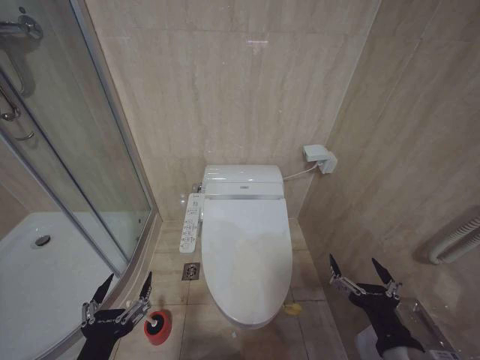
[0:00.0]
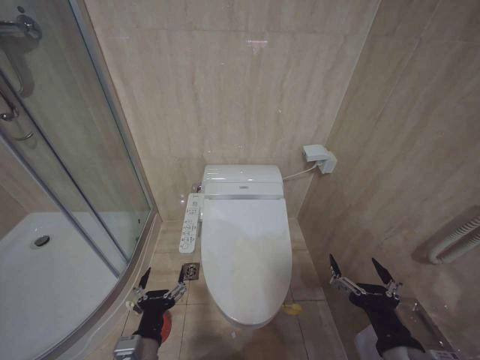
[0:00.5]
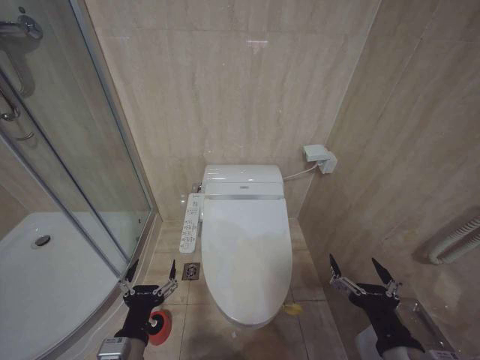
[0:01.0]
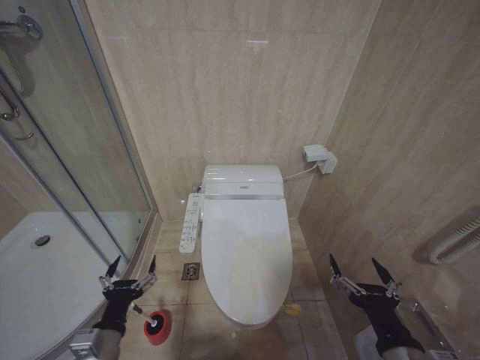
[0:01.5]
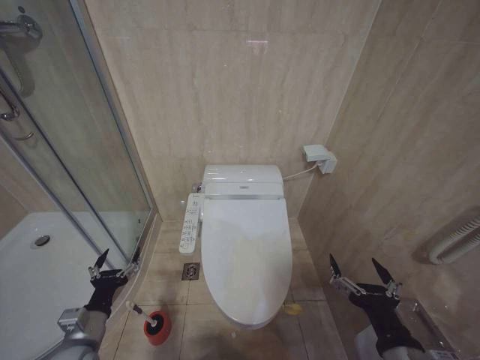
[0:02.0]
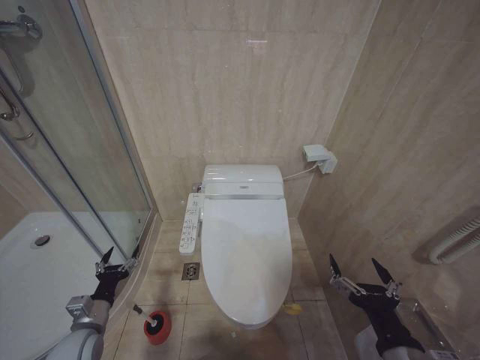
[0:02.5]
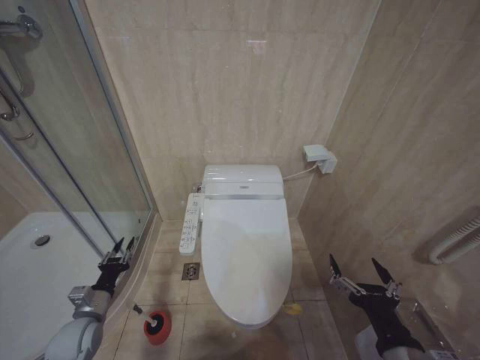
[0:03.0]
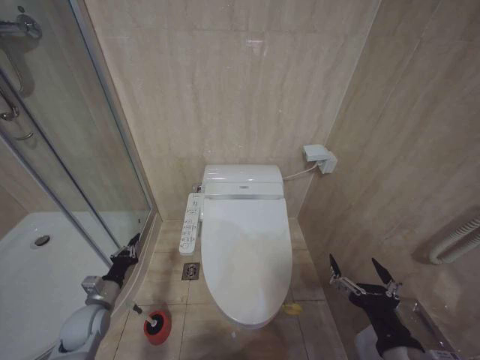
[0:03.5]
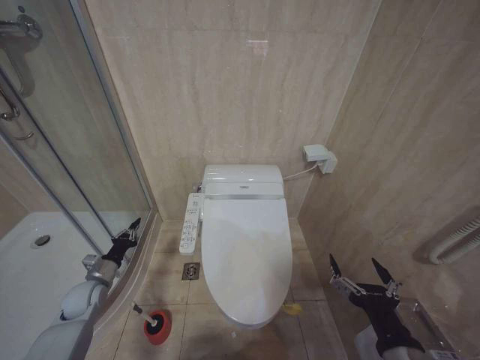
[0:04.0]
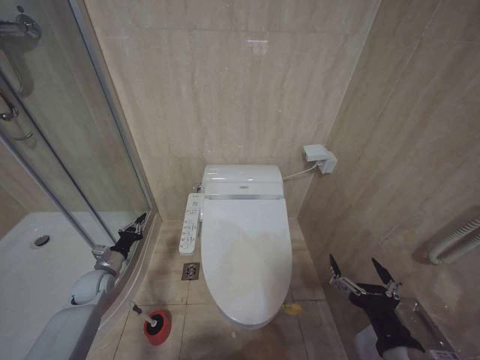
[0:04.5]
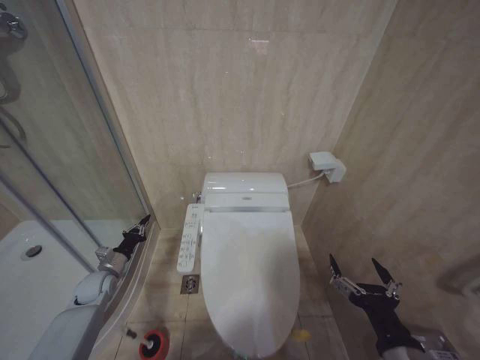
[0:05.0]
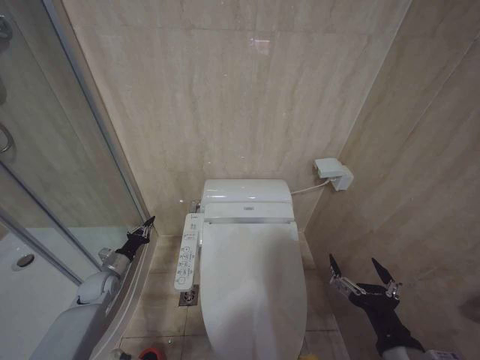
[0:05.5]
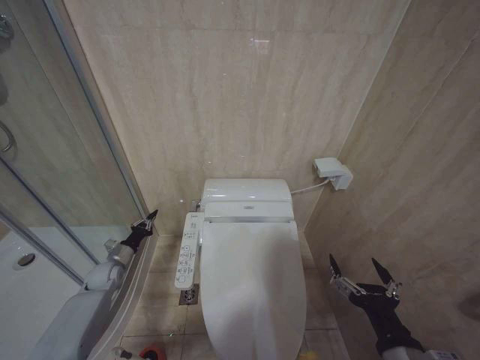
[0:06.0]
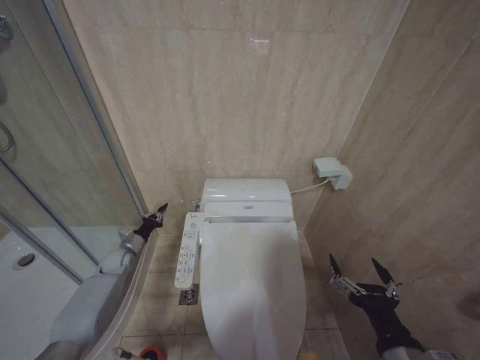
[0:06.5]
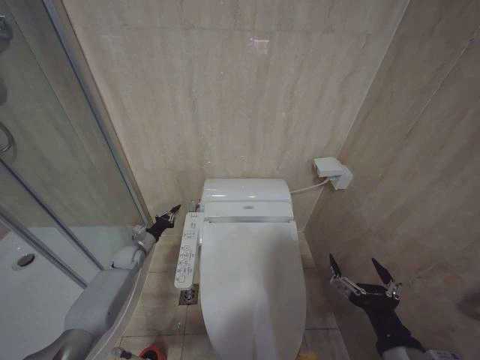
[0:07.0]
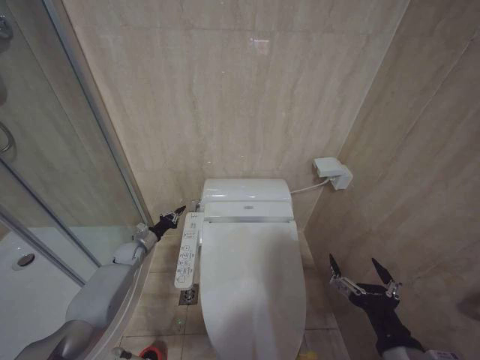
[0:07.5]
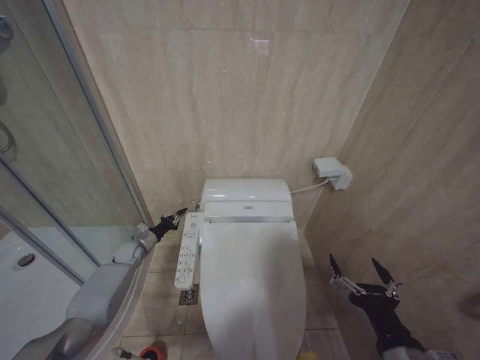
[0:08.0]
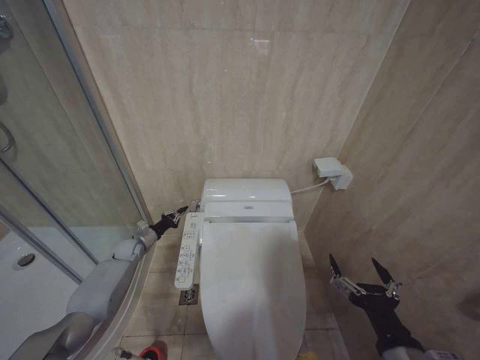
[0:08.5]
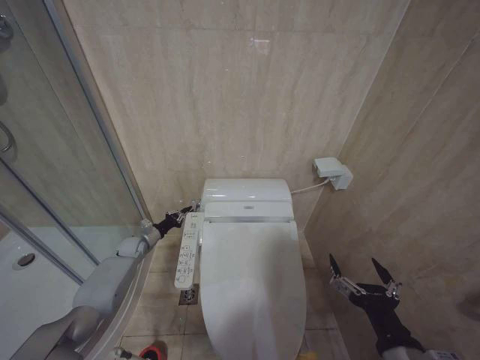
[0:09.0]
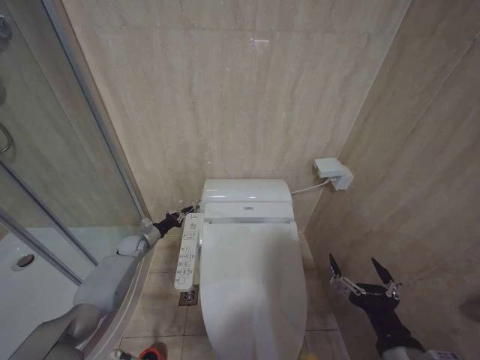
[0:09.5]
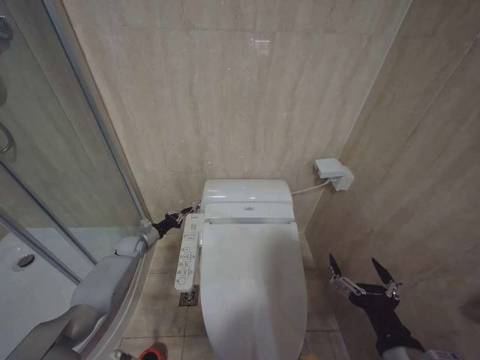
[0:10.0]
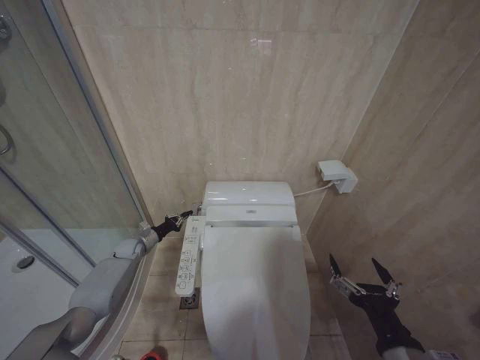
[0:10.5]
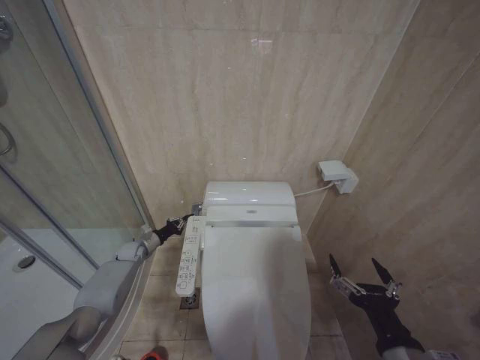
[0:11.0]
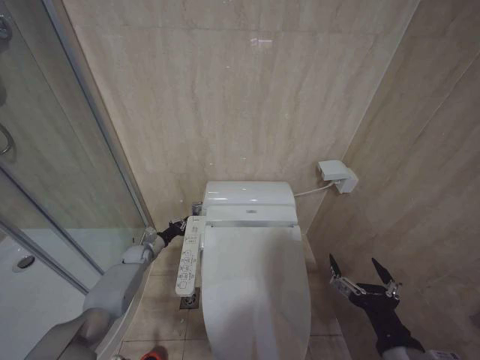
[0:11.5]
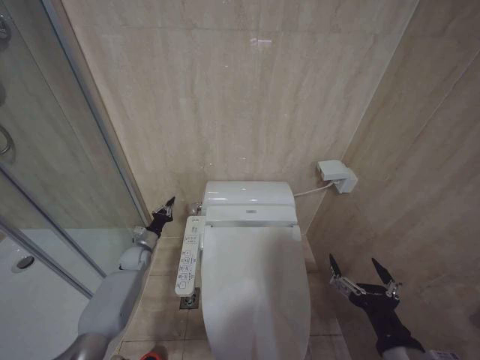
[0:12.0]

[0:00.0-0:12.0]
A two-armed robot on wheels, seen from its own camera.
Task of the whole recording: Open the toilet lid, clean the toilet bowl with a toilet brush, close the toilet lid, and flush.
0:00.0 to 0:02.0: The left gripper is displaced forward, downward and to the left by roughly 20 cm.
0:02.0 to 0:04.0: The left gripper moves forward and to the left, roughly 20 cm, and closes its fingers.
0:04.0 to 0:06.0: The left gripper shifts some 10 cm forward.
0:06.0 to 0:08.0: The left gripper heads forward and to the right, covering some 10 cm.
0:08.0 to 0:10.0: The grippers stay close to where they were, moving slightly.

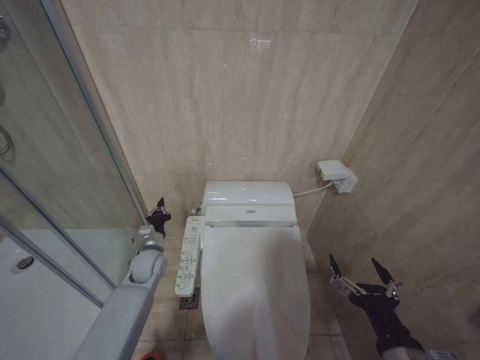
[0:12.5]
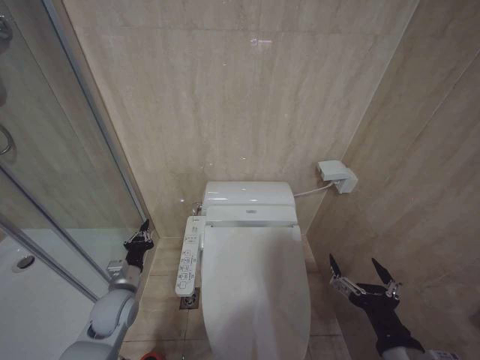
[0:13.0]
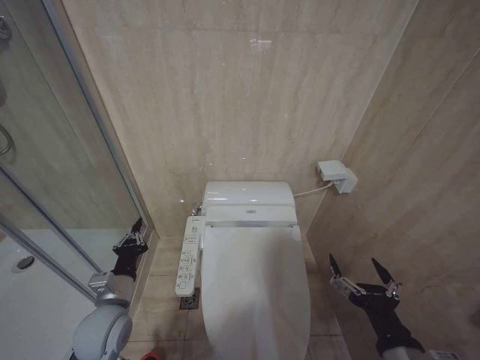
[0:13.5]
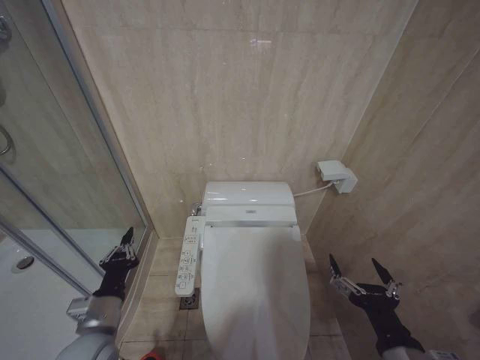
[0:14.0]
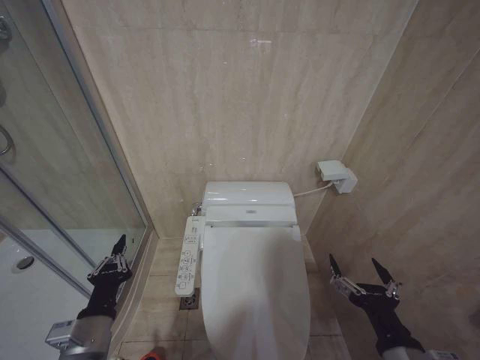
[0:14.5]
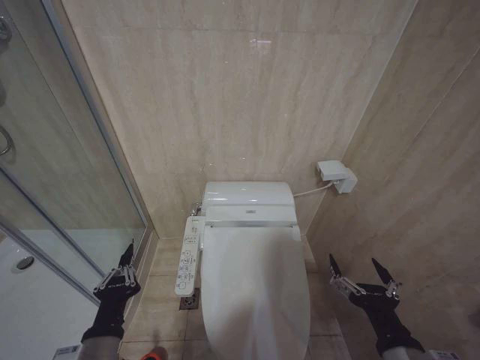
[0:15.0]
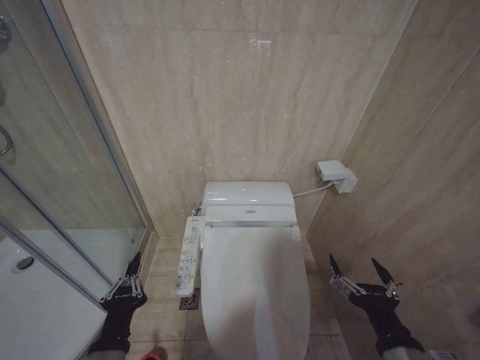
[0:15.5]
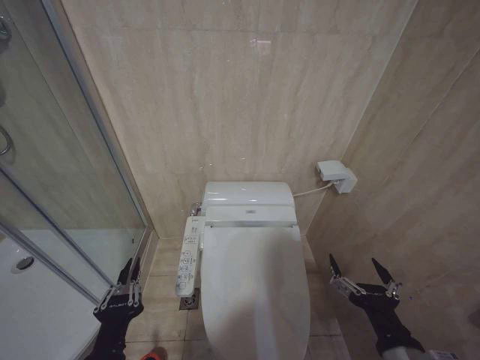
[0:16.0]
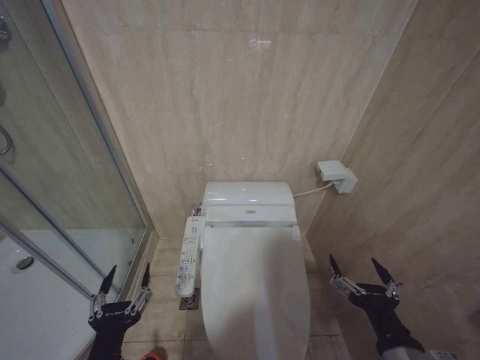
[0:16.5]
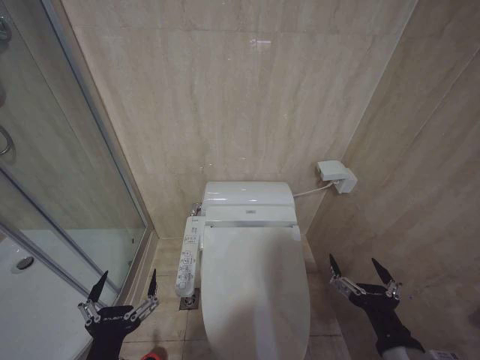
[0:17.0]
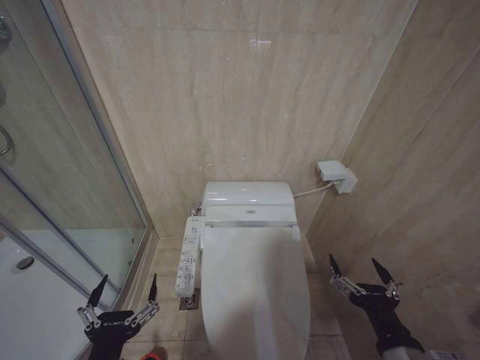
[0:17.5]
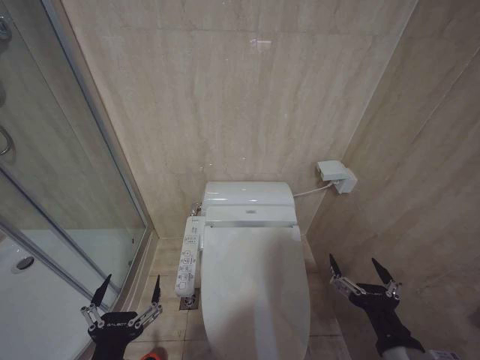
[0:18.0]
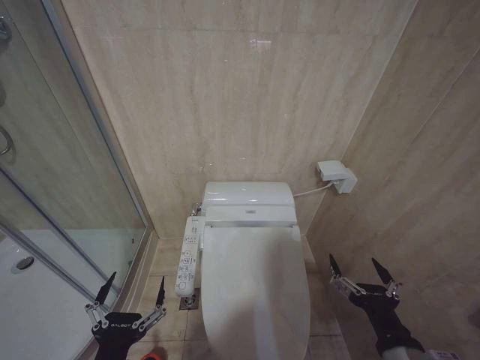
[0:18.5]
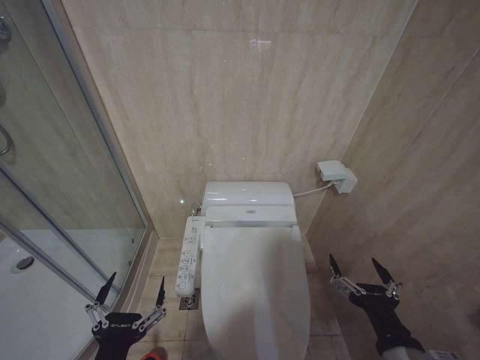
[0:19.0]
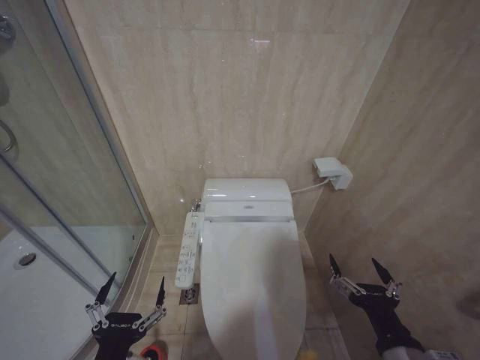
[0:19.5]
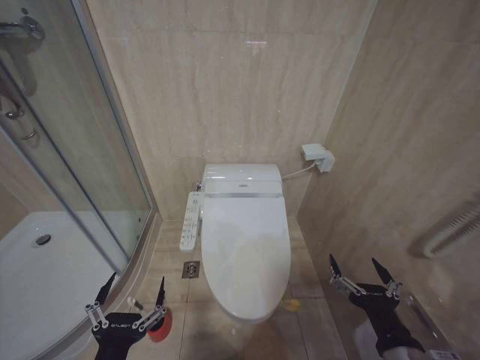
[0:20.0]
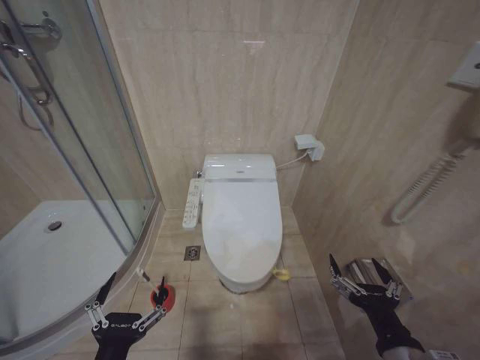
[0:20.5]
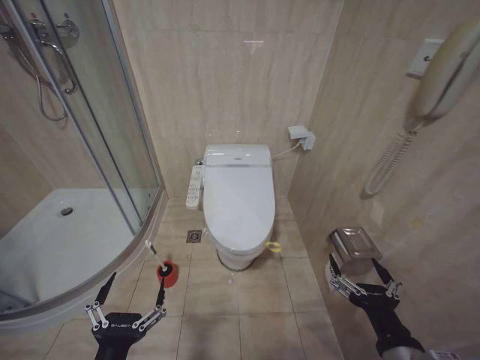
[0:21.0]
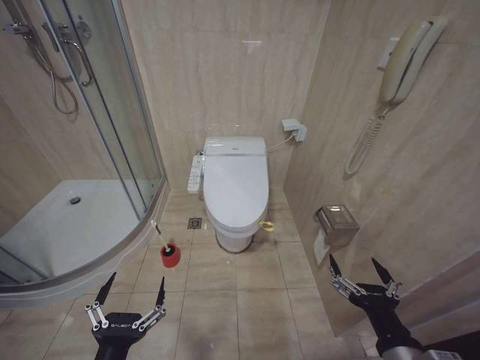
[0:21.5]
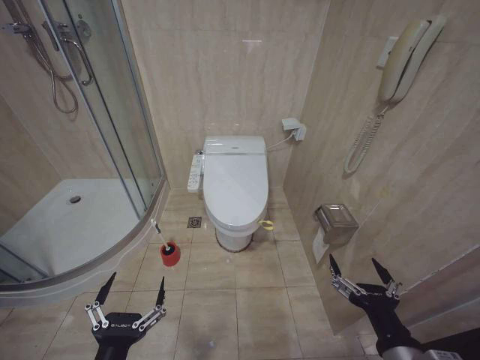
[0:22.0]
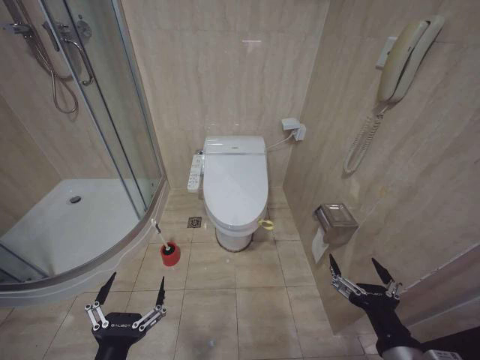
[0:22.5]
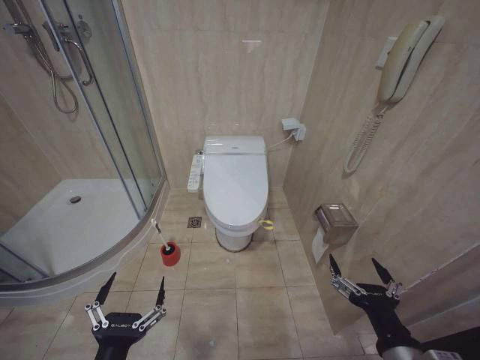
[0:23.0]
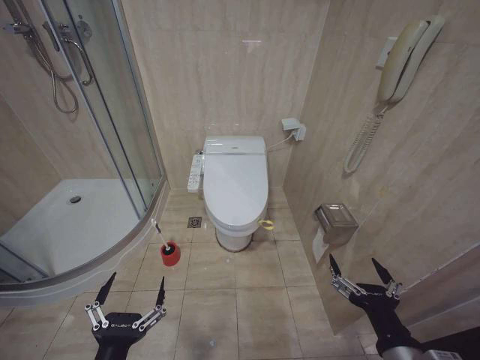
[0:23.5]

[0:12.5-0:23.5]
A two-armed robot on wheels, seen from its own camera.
Task of the whole recording: Open the toilet lid, clean the toilet bowl with a toilet brush, close the toilet lid, and flush.
0:12.5 to 0:14.5: The left gripper goes some 25 cm backward.
0:14.5 to 0:16.0: The left gripper moves backward, about 5 cm.
0:16.0 to 0:18.0: The left gripper opens.
0:18.0 to 0:20.0: The grippers stay close to where they were, moving slightly.
0:21.5 to 0:23.5: Both grippers stay about where they are.
